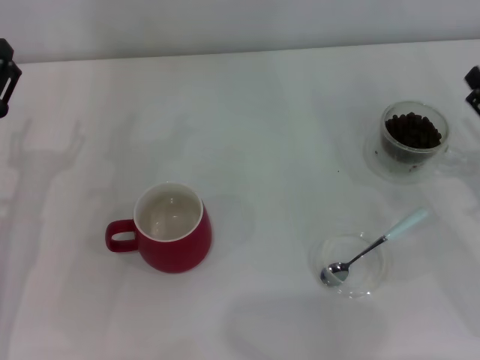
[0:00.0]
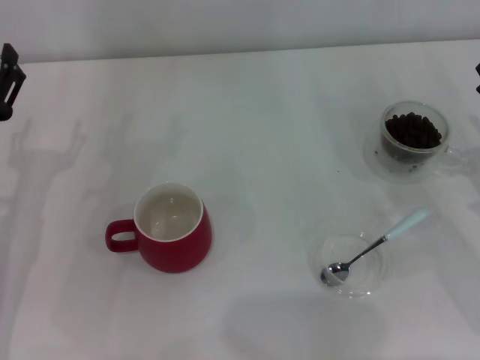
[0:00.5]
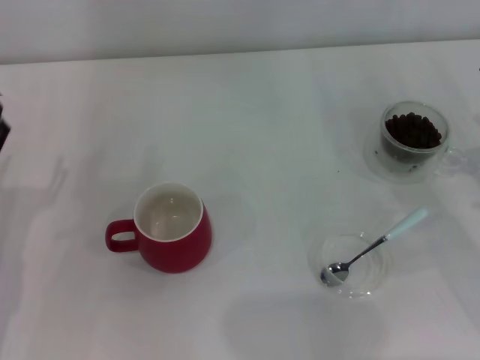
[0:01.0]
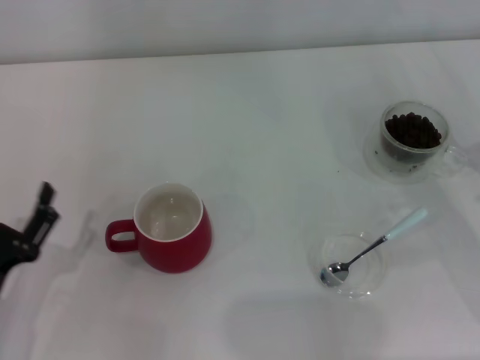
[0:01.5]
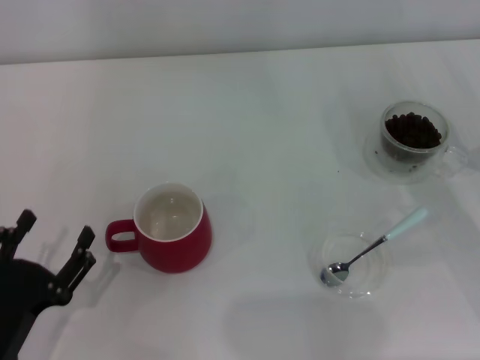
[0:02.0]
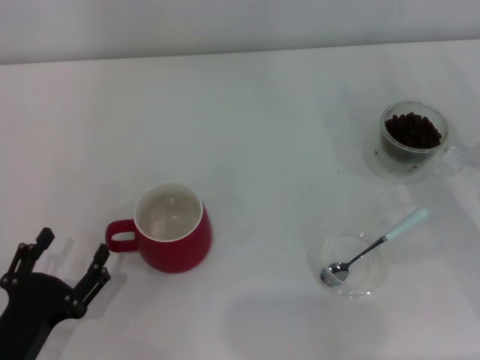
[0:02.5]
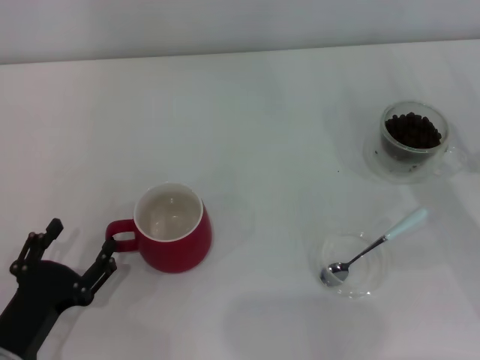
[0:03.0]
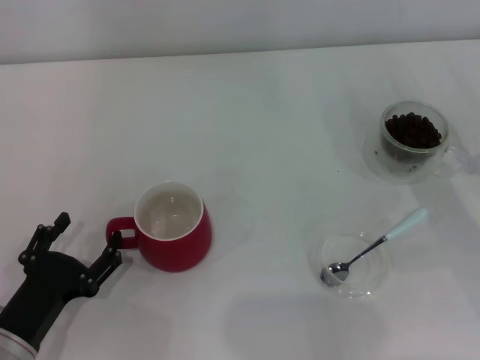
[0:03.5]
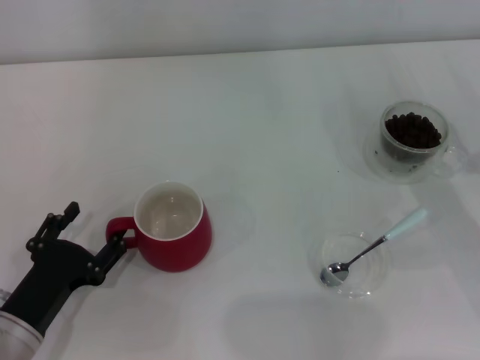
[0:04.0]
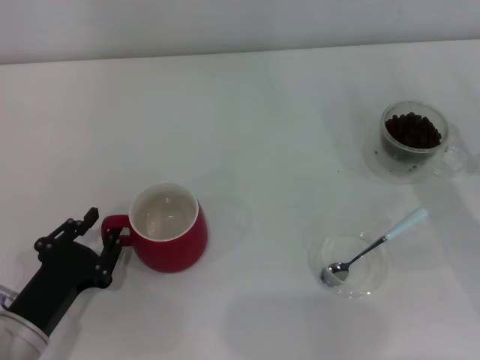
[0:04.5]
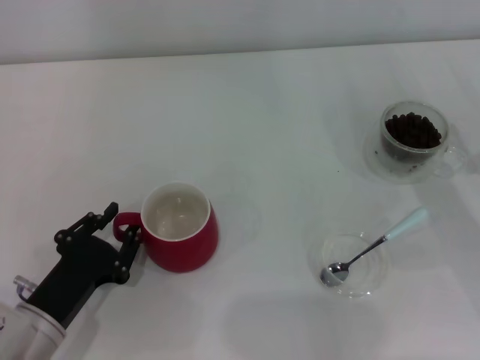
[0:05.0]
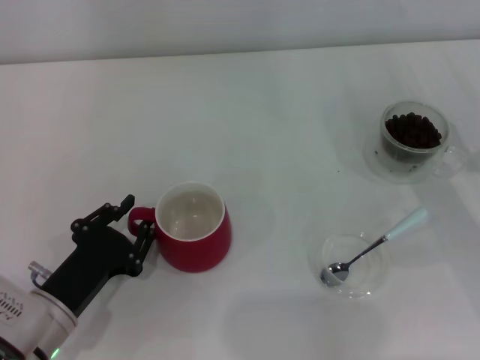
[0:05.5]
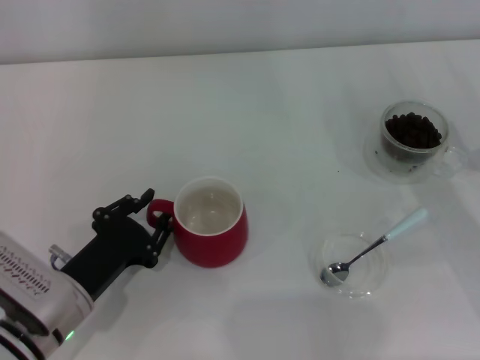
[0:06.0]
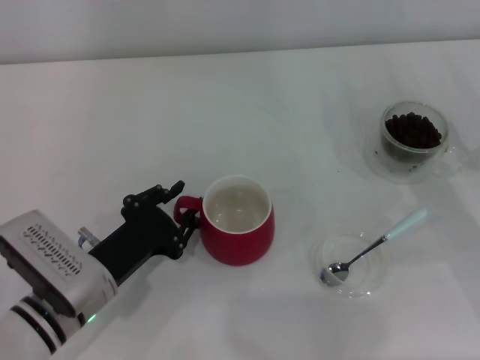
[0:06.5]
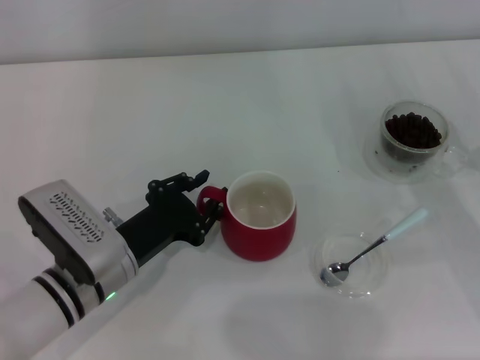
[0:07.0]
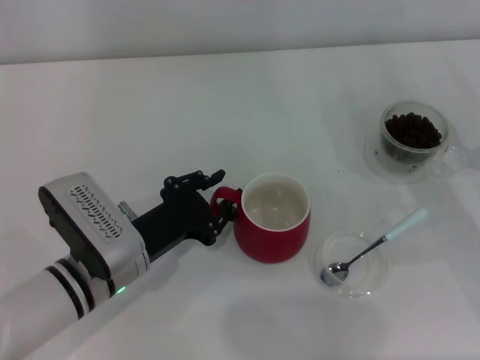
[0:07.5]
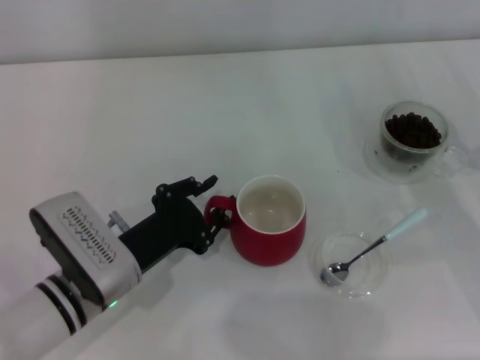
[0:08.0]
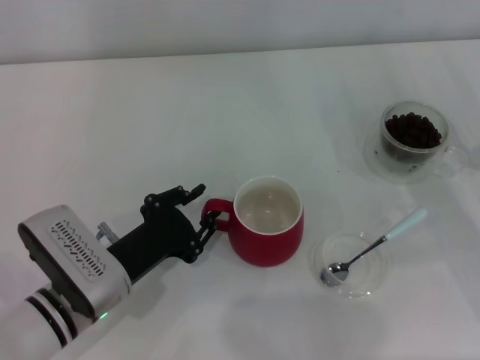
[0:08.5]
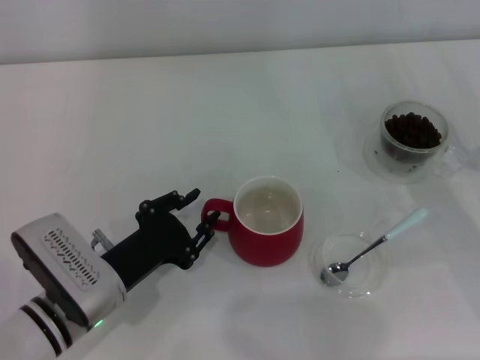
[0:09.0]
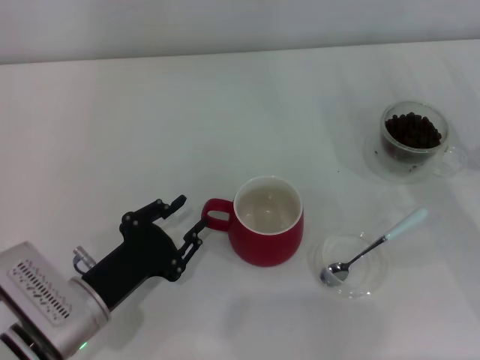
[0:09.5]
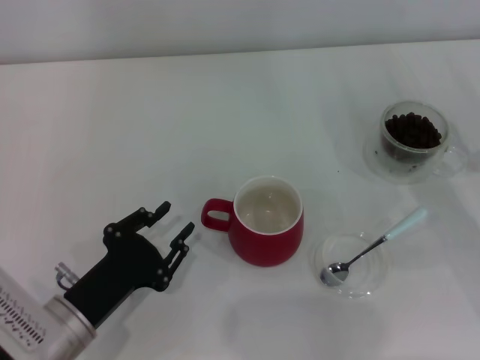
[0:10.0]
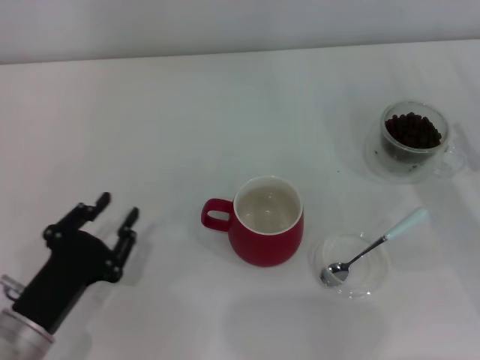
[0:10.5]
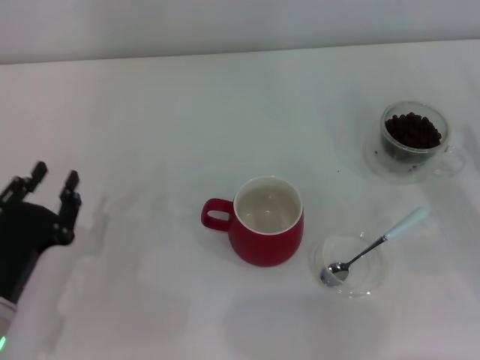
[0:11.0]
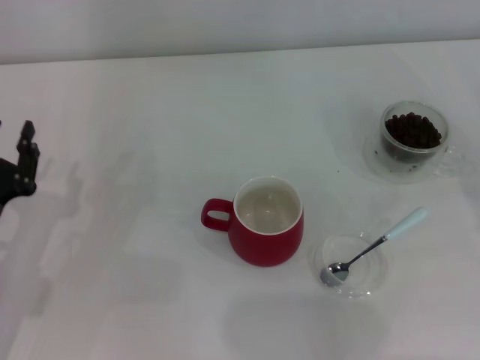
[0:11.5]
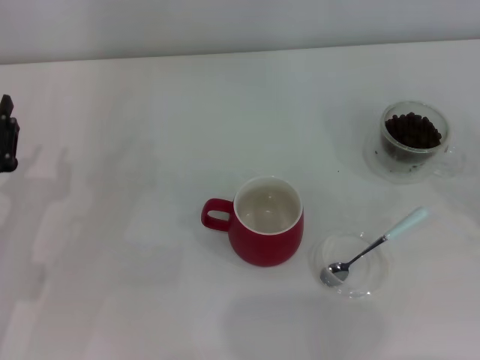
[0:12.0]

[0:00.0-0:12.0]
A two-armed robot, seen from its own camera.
Task of the whole recording: Use a blue spoon to take out the coffee beans from the glass and pour them into the red cup.
Step, 0:00.0 to 0:10.0: Move the cup to the center of view with the left gripper.
0:00.0 to 0:02.0: The left gripper is displaced backward and downward by roughly 15 cm.
0:02.0 to 0:04.0: The grippers make only small movements.
0:04.0 to 0:06.0: The left gripper shifts by about 5 cm, and closes up.
0:06.0 to 0:08.0: The left gripper moves roughly 5 cm.
0:08.0 to 0:10.0: The left gripper travels backward by about 5 cm.
0:10.0 to 0:12.0: The left gripper heads to the left and forward, covering about 10 cm; the right gripper goes about 10 cm to the right and backward.

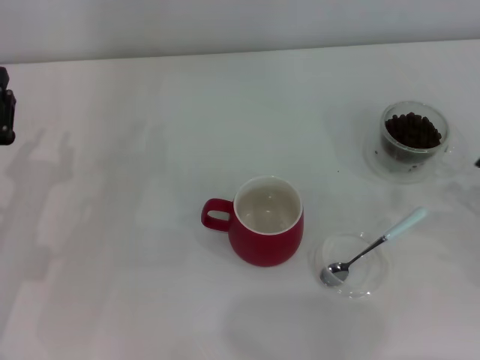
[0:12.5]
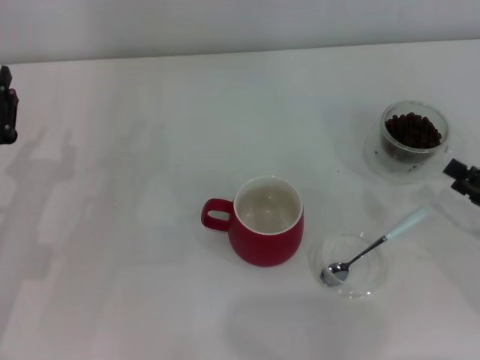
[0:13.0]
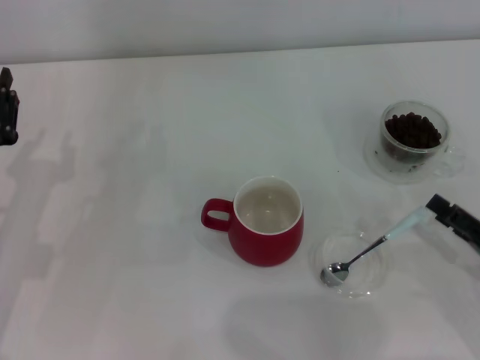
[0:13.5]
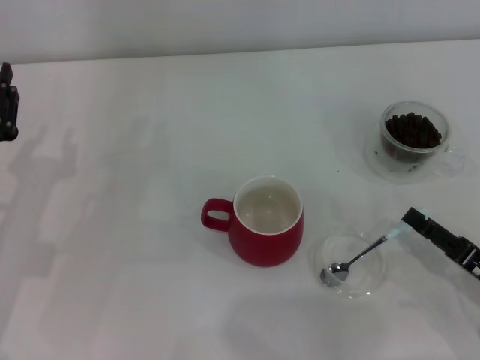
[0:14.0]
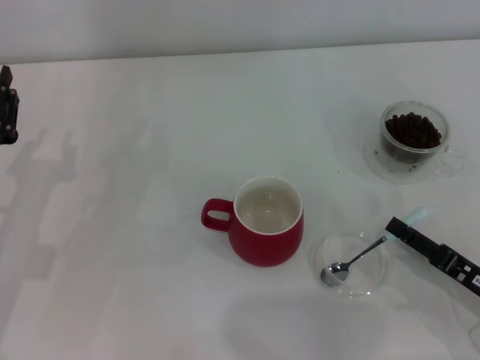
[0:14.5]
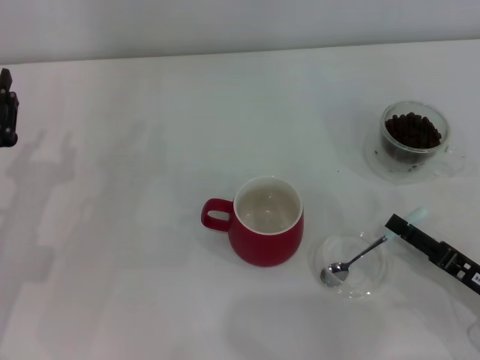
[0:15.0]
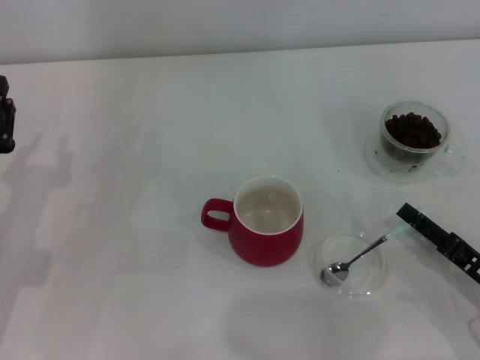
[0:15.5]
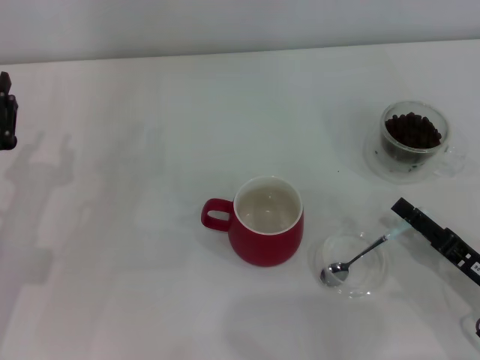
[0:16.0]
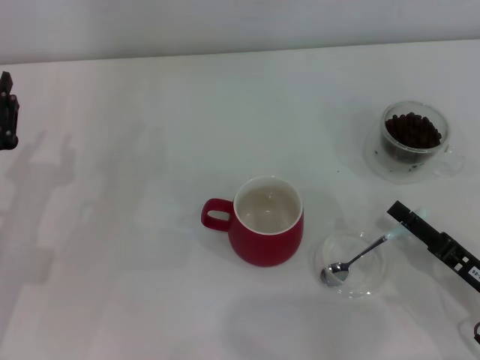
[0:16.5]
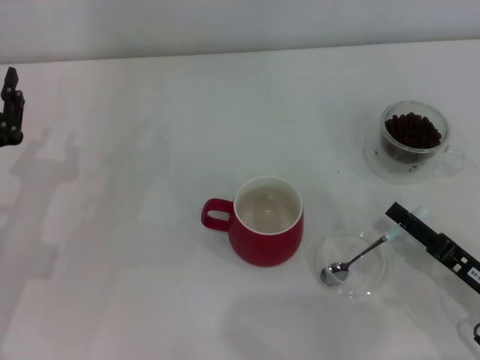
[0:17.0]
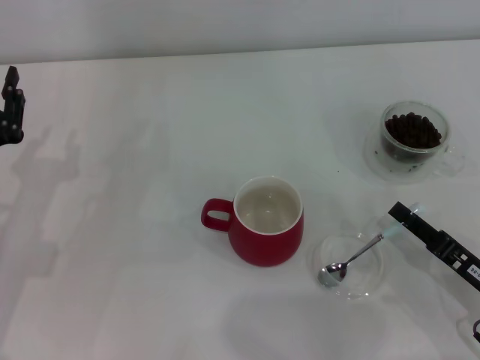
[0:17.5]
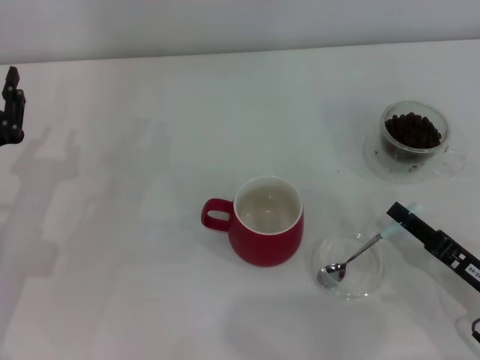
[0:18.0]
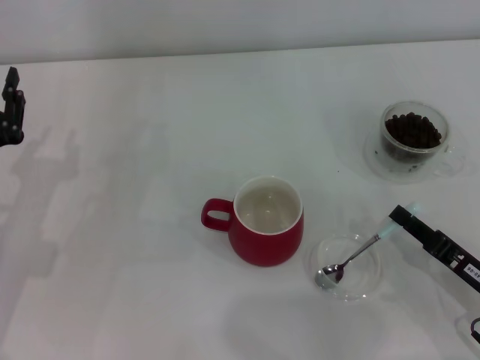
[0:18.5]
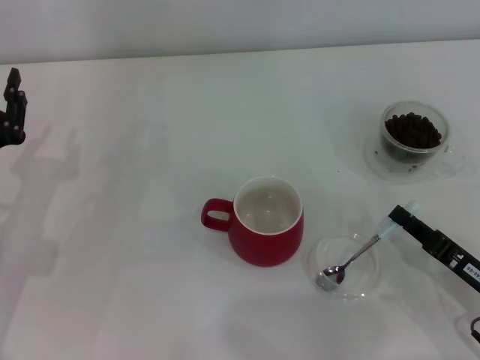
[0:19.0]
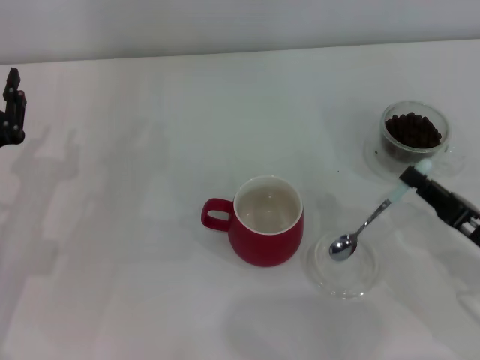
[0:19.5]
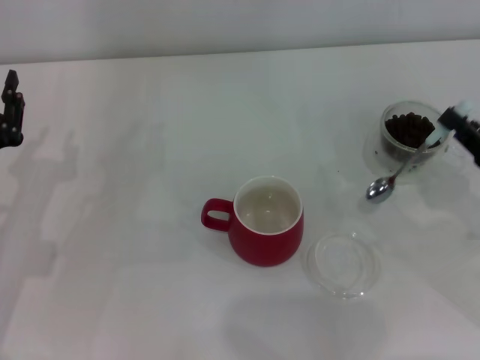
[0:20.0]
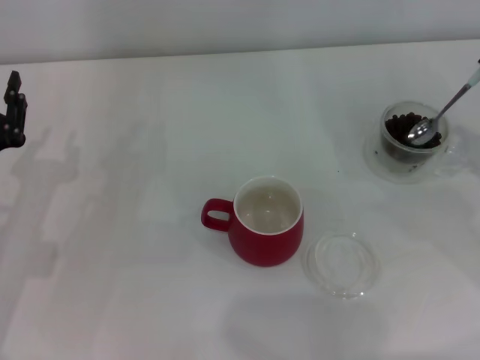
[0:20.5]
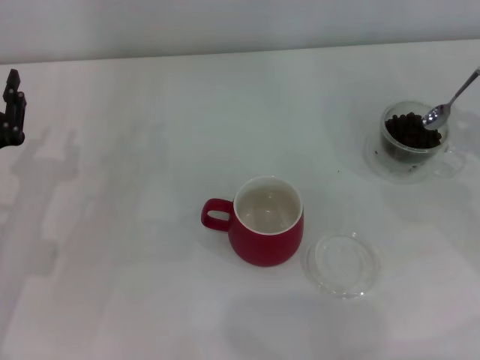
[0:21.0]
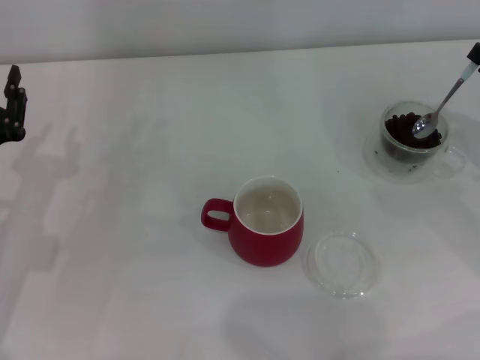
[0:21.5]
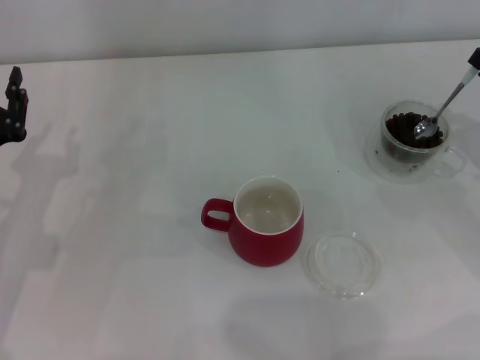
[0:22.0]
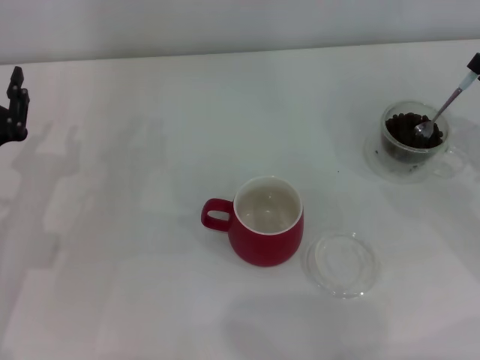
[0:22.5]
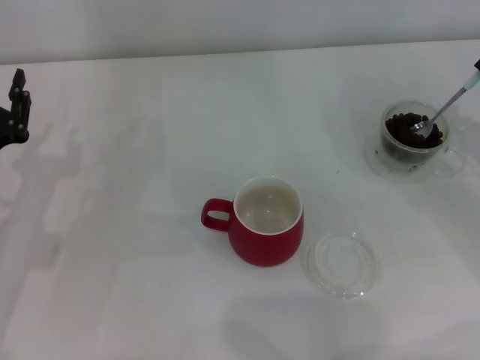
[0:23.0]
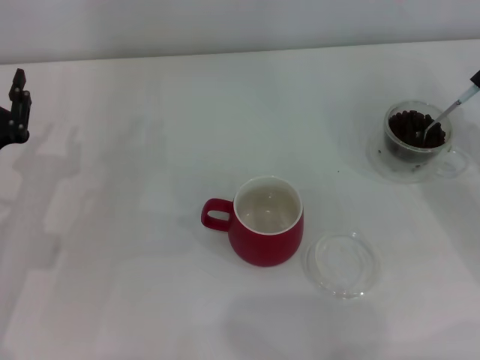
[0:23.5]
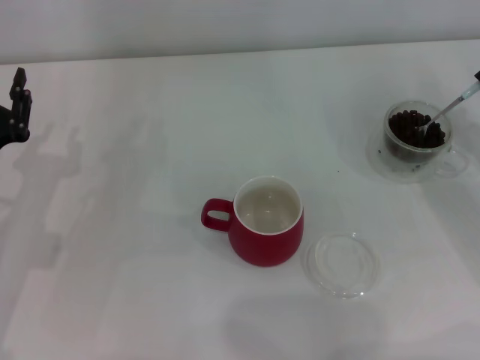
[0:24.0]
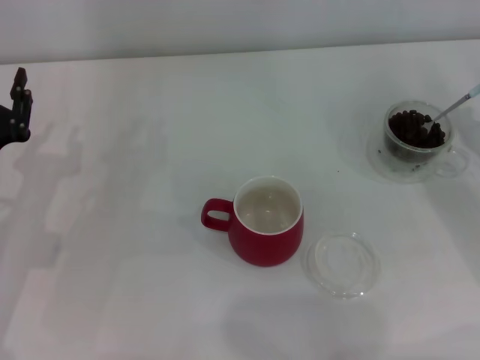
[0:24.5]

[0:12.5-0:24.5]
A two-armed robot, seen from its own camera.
Task of the whole recording: Use a blue spoon to take out the coffee beans from the glass and pour them into the red cup.
Step, 0:12.5 to 0:19.5: Pick up the spoon with the right gripper.
0:12.5 to 0:14.5: The right gripper moves to the left, some 10 cm.
0:14.5 to 0:16.5: The grippers move only a little.
0:16.5 to 0:18.5: The right gripper closes up.
0:18.5 to 0:20.5: The right gripper shifts about 15 cm forward, upward and to the right.
0:20.5 to 0:22.5: There are only small adjustments of the grippers.

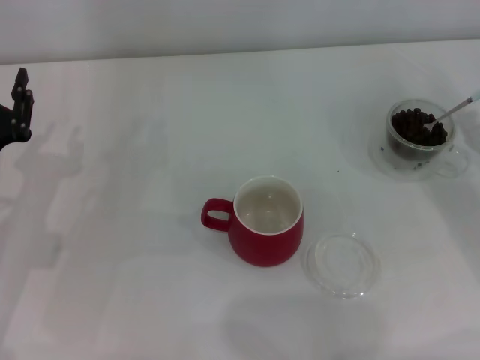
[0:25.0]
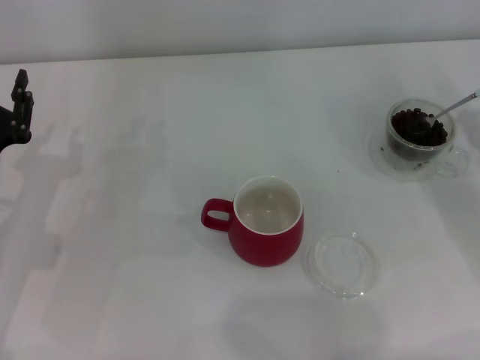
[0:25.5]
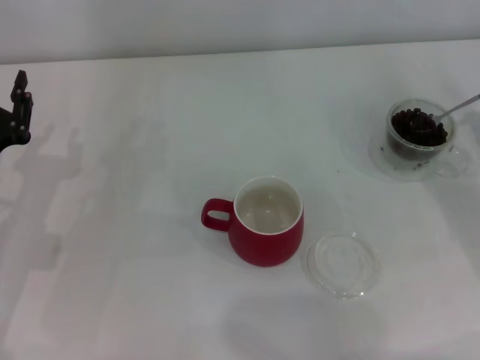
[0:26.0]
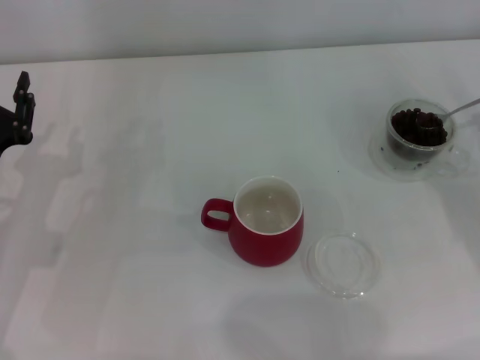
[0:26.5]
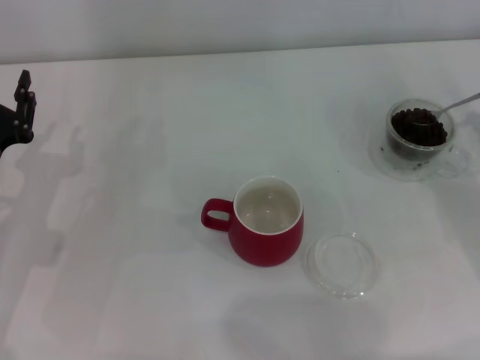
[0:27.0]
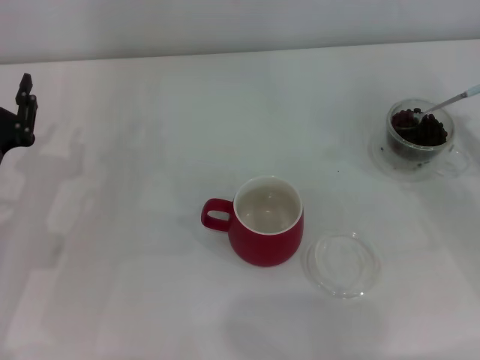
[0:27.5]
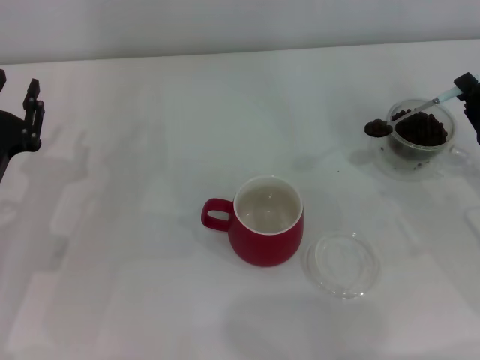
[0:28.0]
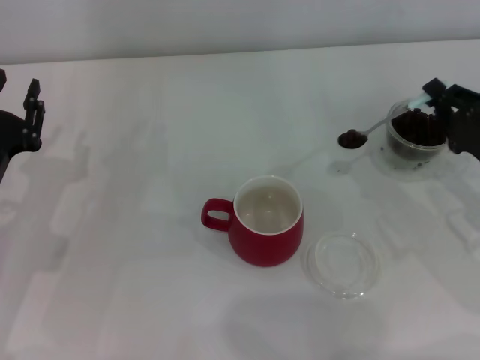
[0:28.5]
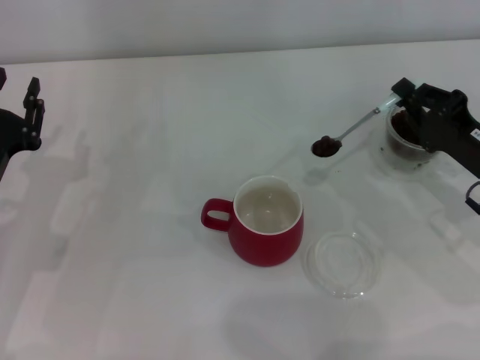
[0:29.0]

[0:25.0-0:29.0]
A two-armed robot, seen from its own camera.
Task of the whole recording: Use a blue spoon to take out the coffee beans from the glass and pour them into the red cup.
0:27.0 to 0:29.0: The right gripper is displaced to the left by about 5 cm.
